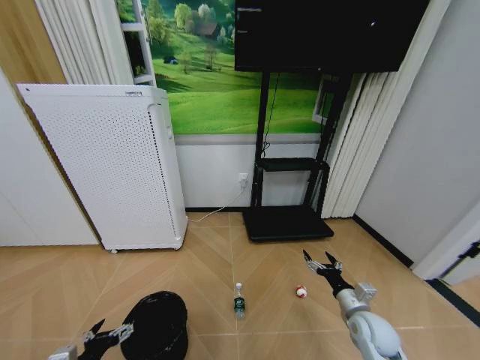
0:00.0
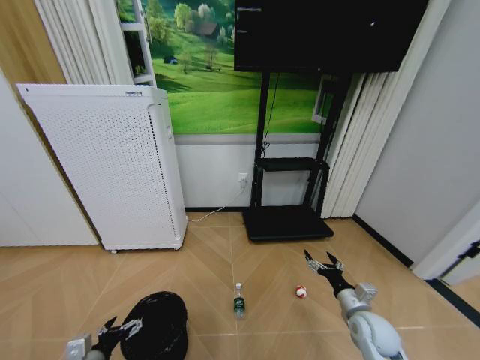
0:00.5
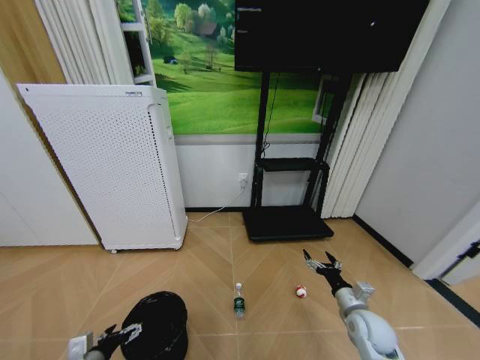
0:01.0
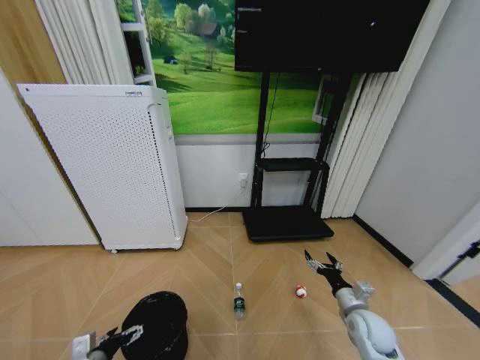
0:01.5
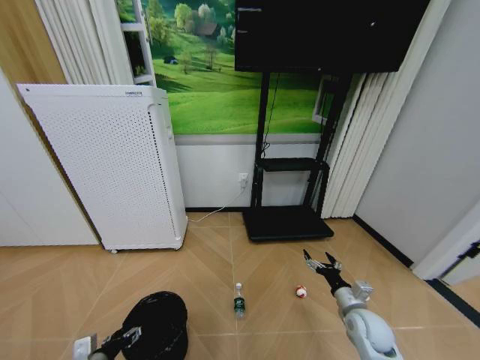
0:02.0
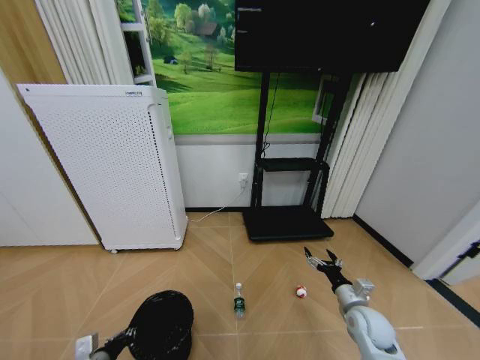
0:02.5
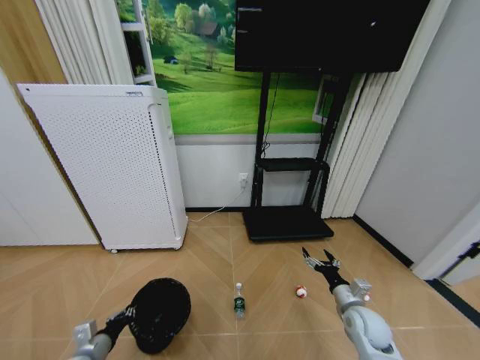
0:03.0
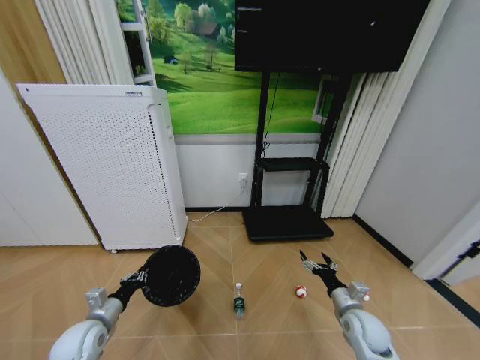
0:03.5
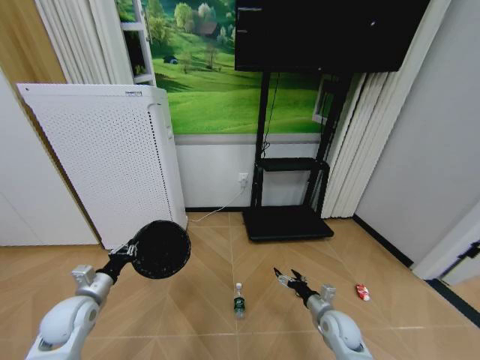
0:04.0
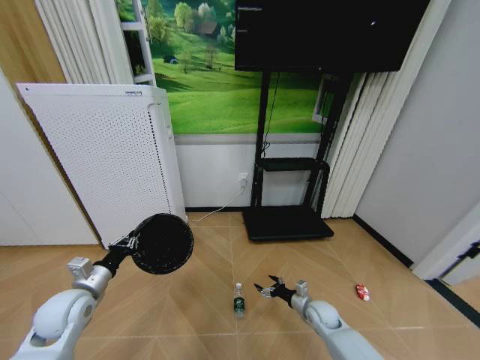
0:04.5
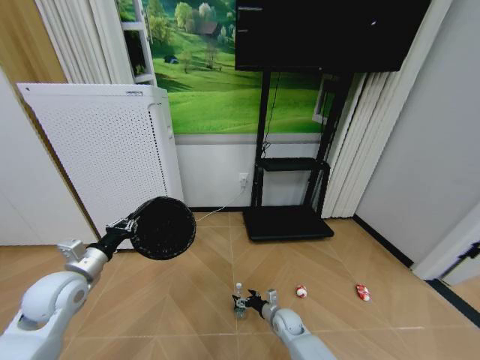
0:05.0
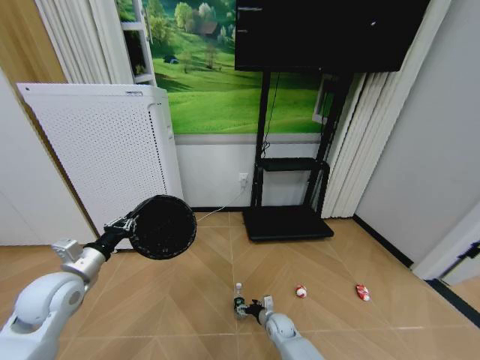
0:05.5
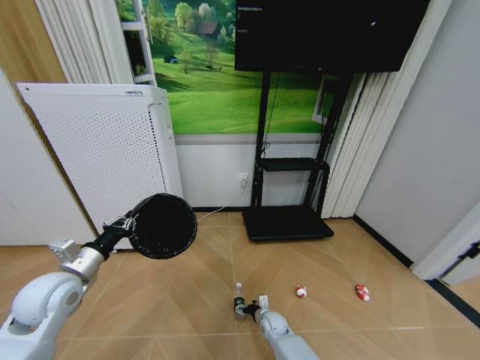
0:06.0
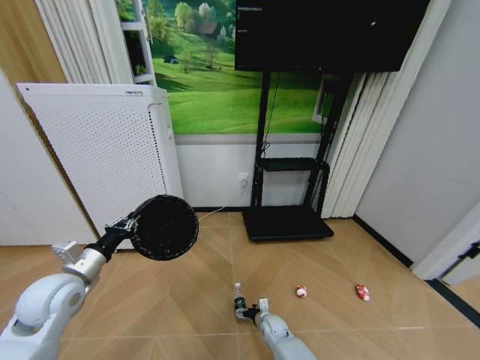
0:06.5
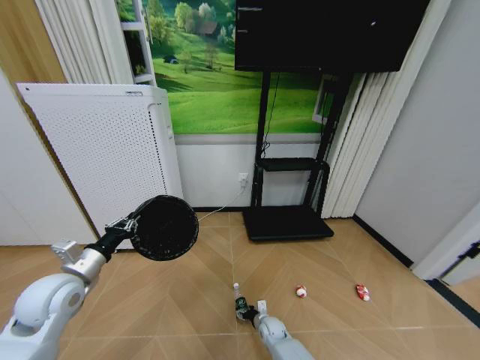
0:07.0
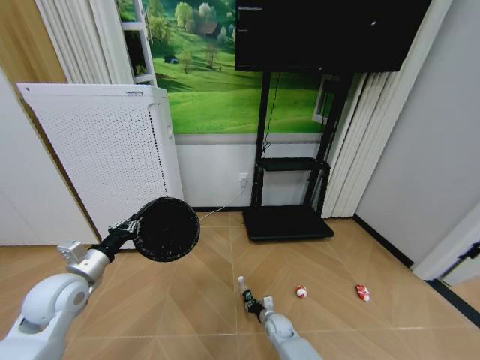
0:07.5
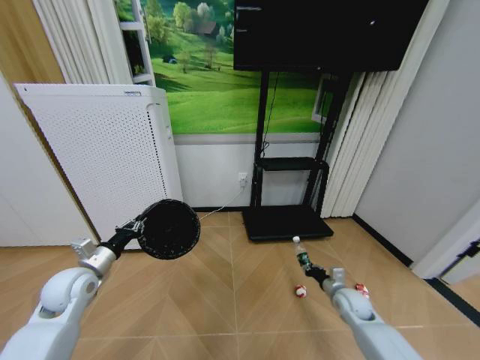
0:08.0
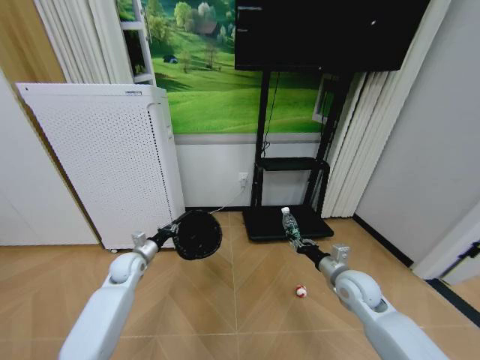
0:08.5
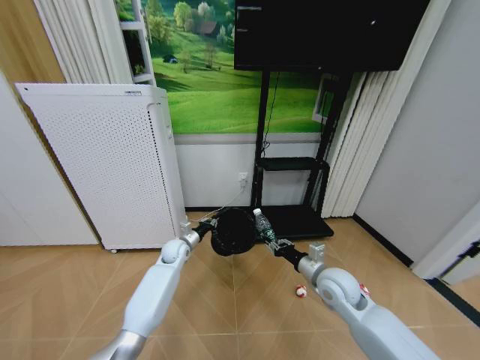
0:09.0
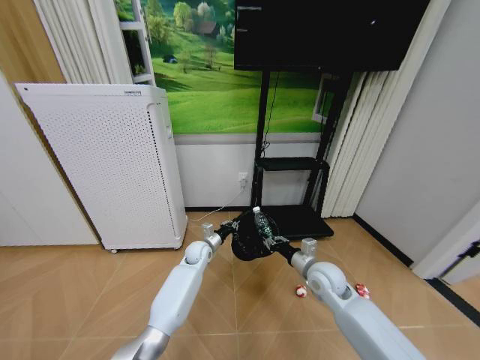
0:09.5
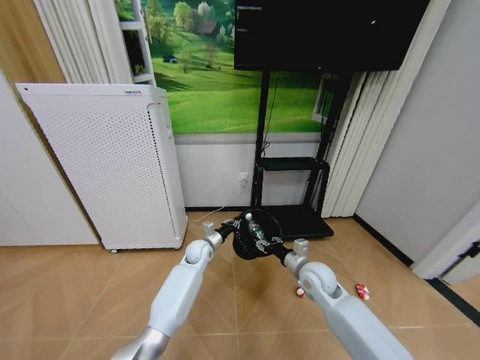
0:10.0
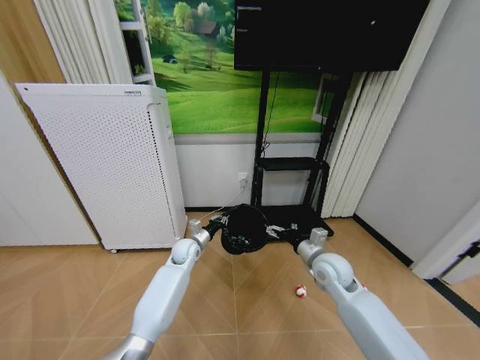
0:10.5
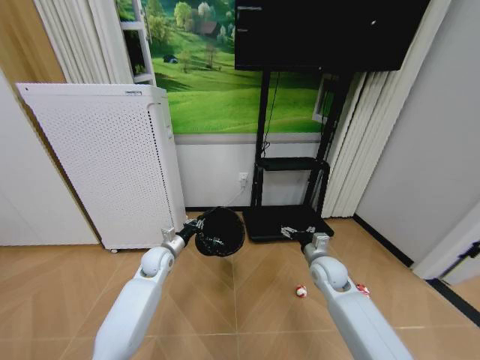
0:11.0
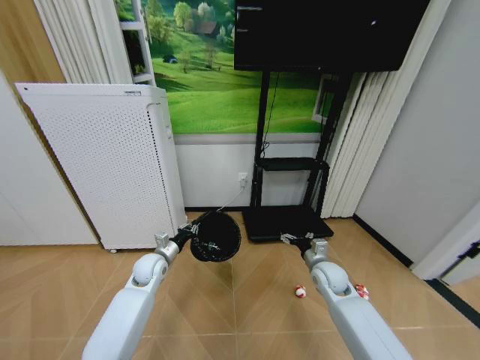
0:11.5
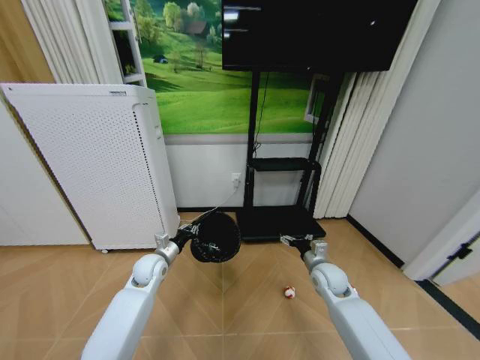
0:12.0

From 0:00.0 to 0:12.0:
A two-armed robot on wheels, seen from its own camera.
Task of the whole recording: Pick up the trash bin and place the garbage on the floor into it.
From 0:00.0 to 0:02.0: The left gripper shifts by some 5 cm.
From 0:02.0 to 0:04.0: The right gripper shifts by about 5 cm, while the left gripper moves forward and upward, about 15 cm, and closes up.
From 0:04.0 to 0:06.0: The right gripper heads to the left and downward, covering some 20 cm; the left gripper goes approximately 10 cm upward.
From 0:06.0 to 0:08.0: The right gripper goes roughly 25 cm to the right and upward, and closes.
From 0:08.0 to 0:10.0: The right gripper travels upward and to the left by roughly 20 cm, and opens its fingers; the left gripper goes roughly 35 cm to the right and forward.
From 0:10.0 to 0:12.0: The right gripper shifts approximately 5 cm to the right, and opens up; the left gripper is displaced to the left and backward by approximately 15 cm.

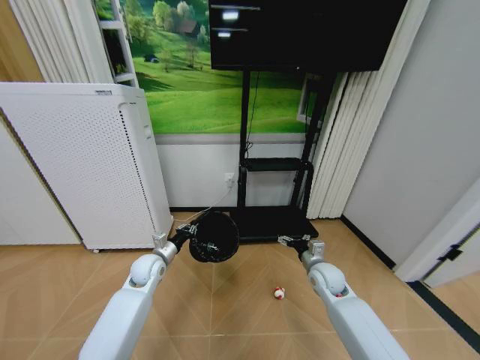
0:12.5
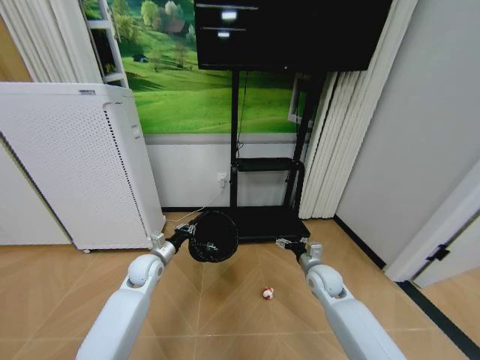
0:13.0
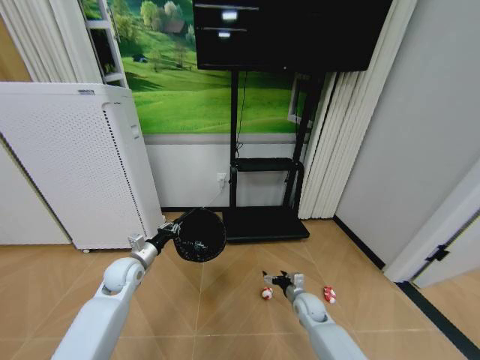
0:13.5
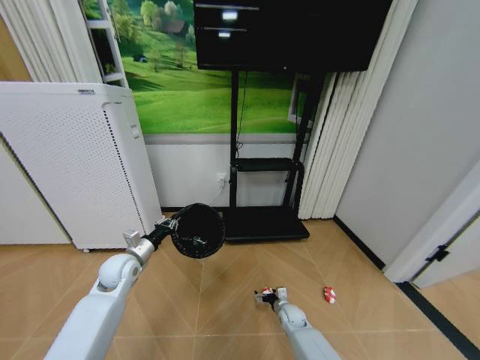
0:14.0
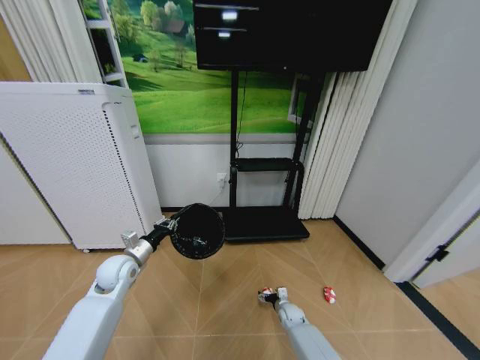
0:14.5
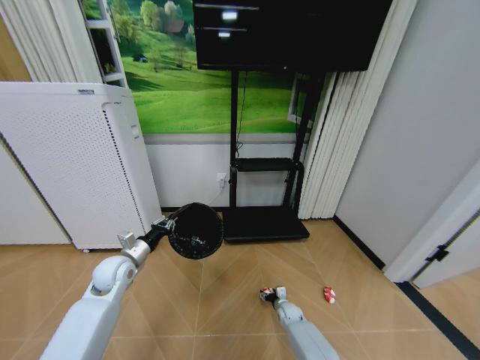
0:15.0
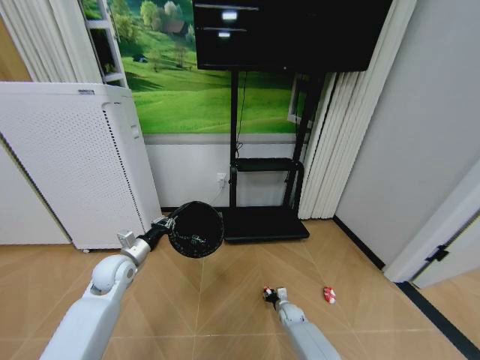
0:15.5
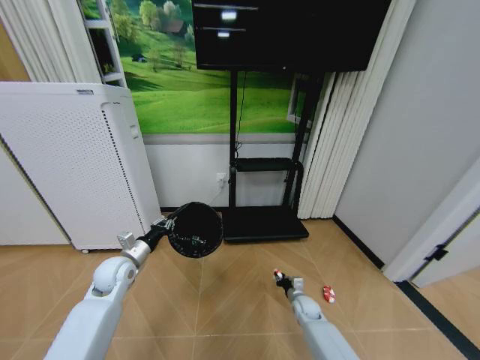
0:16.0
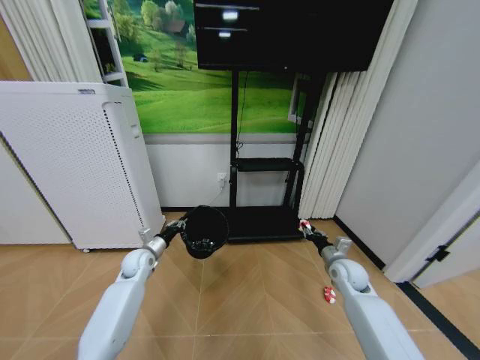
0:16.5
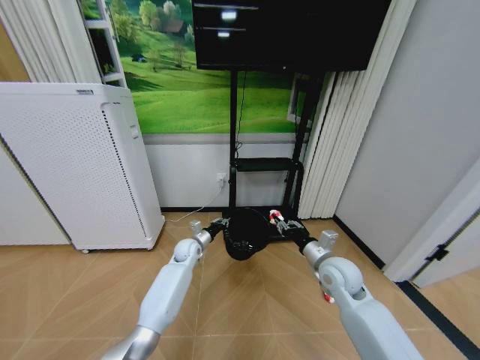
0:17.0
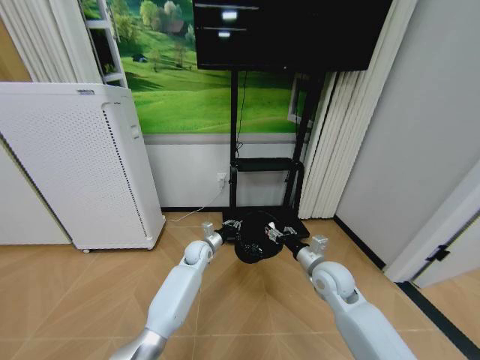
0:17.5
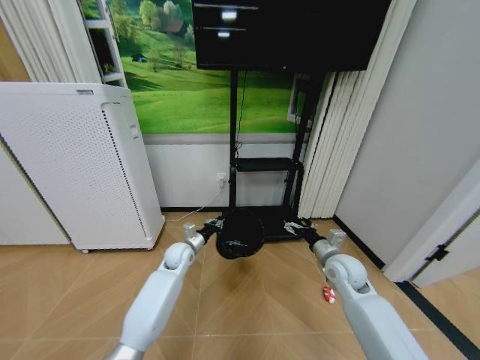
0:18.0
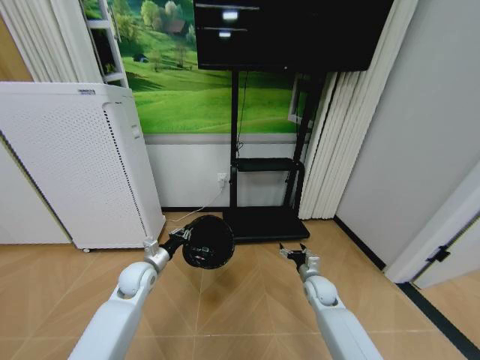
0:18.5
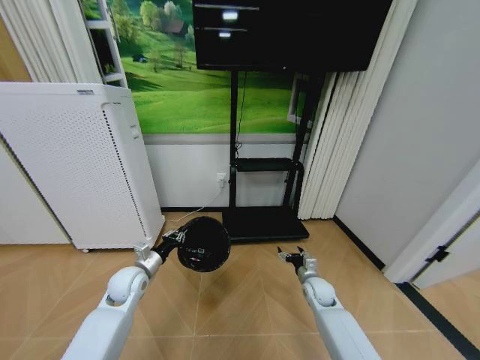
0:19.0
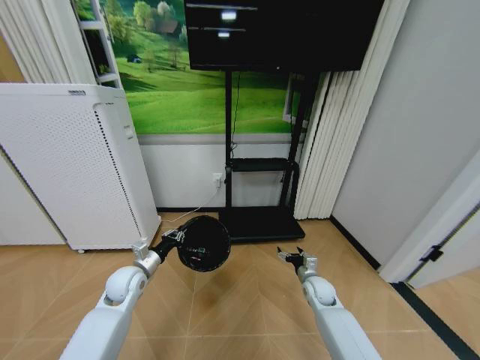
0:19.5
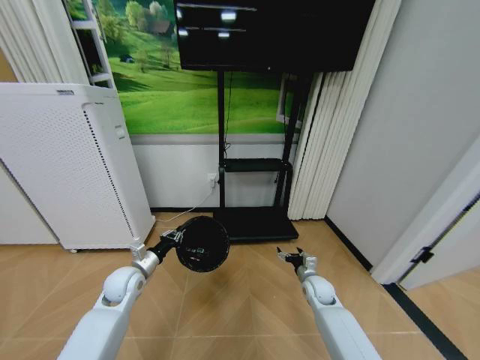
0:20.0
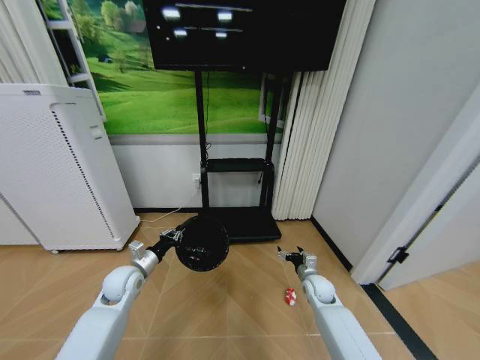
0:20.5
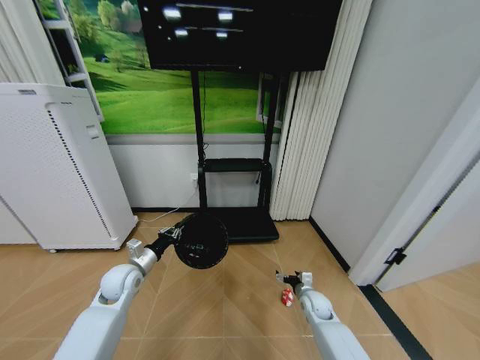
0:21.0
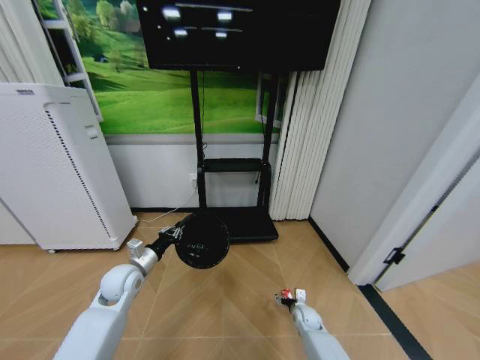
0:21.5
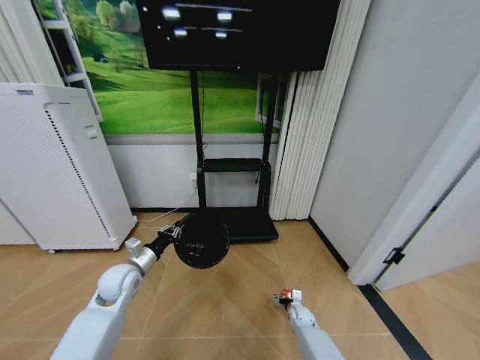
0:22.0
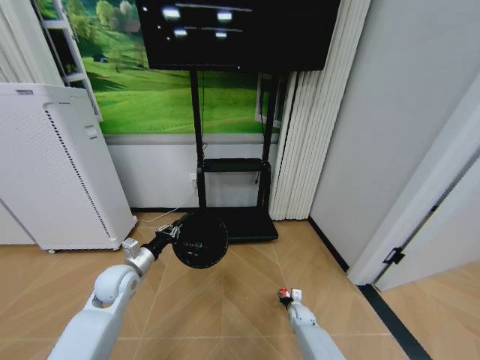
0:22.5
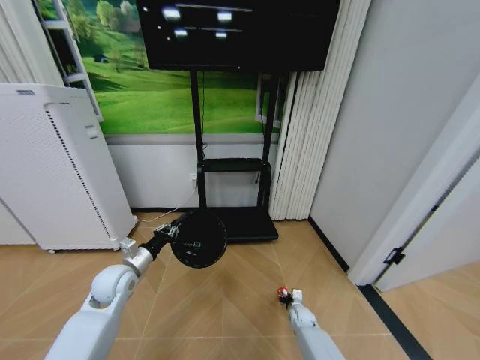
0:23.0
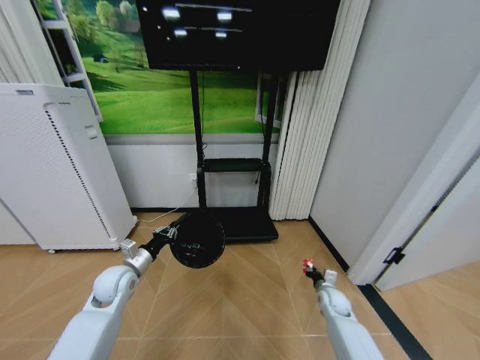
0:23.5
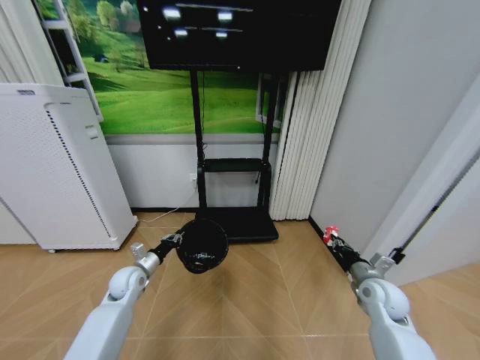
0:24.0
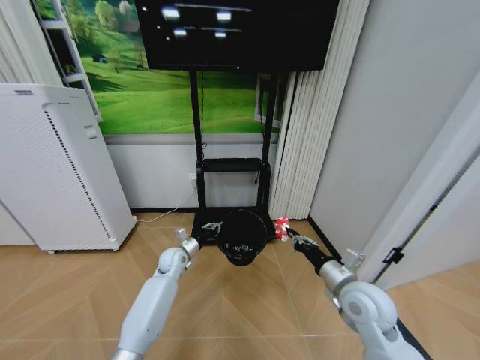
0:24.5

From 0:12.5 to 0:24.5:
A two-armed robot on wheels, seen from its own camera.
Task of the whole recording: Pick up the trash bin and place the garbage on the floor into it.
From 0:12.5 to 0:14.5: The right gripper travels downward by roughly 25 cm. The left gripper goes approximately 5 cm to the left.
From 0:14.5 to 0:16.5: The left gripper travels forward and downward by about 10 cm; the right gripper is displaced upward and to the right by some 30 cm, and closes up.
From 0:16.5 to 0:18.5: The left gripper heads backward, covering approximately 5 cm, and moves about 20 cm to the right and comes back. Meanwhile the right gripper shifts some 10 cm downward and to the left, and opens its fingers.
From 0:20.5 to 0:22.5: The right gripper travels downward by about 20 cm, and closes up.
From 0:22.5 to 0:24.5: The right gripper travels upward by some 35 cm, and closes its fingers. The left gripper is displaced forward, to the right and downward by about 15 cm.

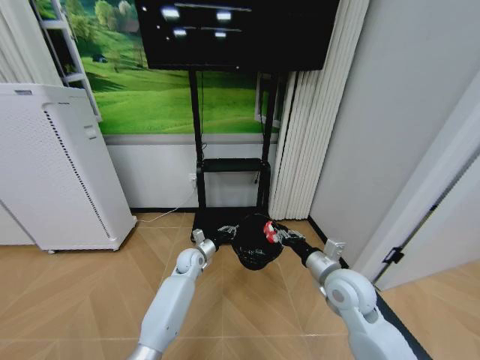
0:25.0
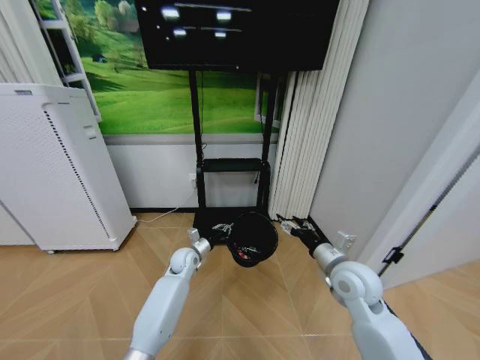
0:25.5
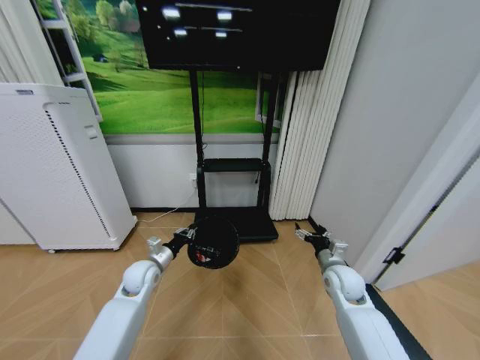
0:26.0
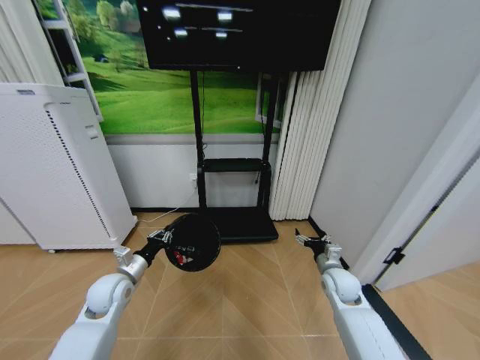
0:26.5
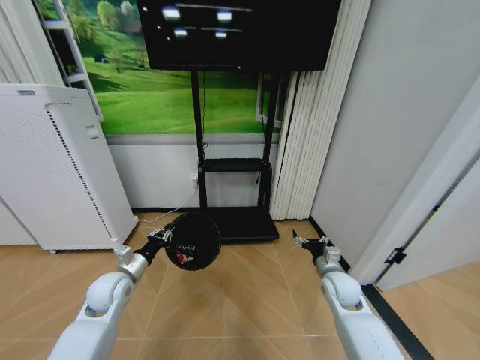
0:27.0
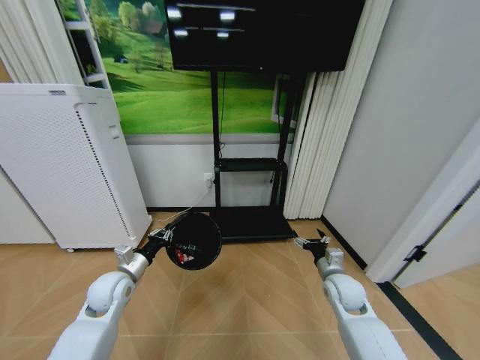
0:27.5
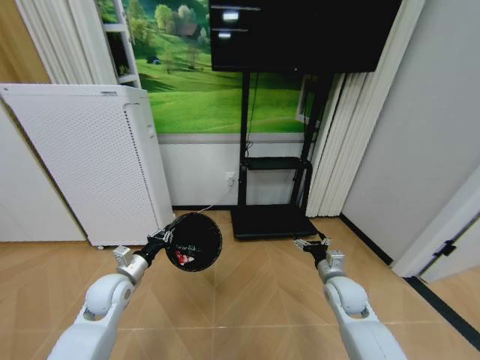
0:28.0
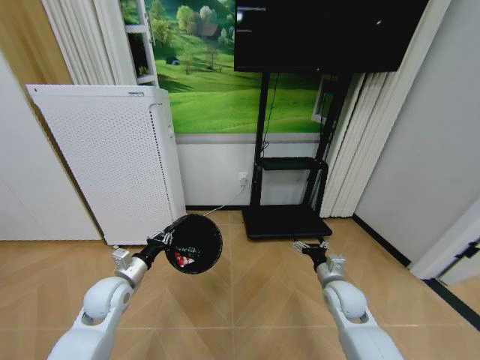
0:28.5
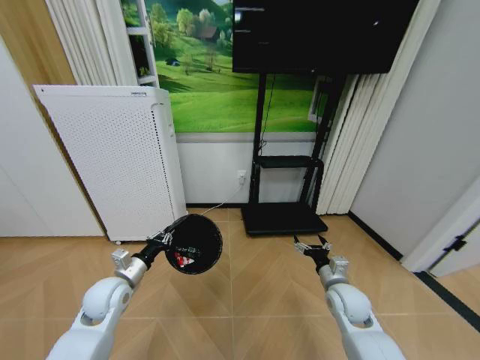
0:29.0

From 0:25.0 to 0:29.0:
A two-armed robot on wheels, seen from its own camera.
Task of the whole recording: Pick up the trash bin and place the garbage on the floor into it.
From 0:25.0 to 0:27.0: The left gripper moves to the left, backward and upward, approximately 25 cm. Meanwhile the right gripper heads downward, forward and to the right, covering roughly 15 cm, and opens.
